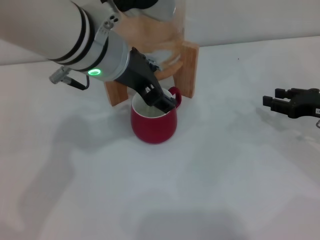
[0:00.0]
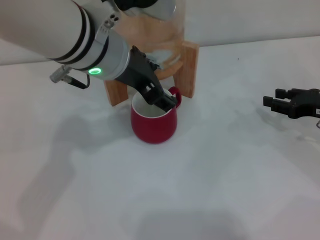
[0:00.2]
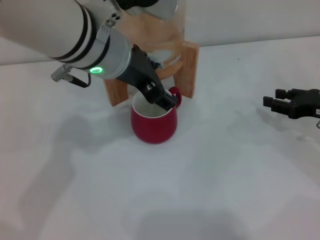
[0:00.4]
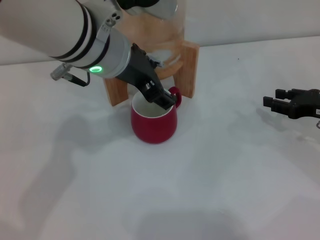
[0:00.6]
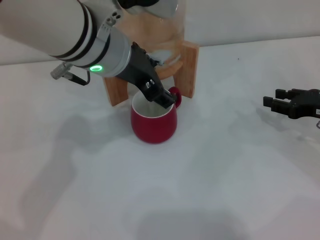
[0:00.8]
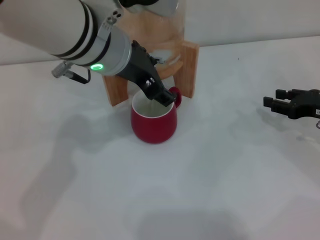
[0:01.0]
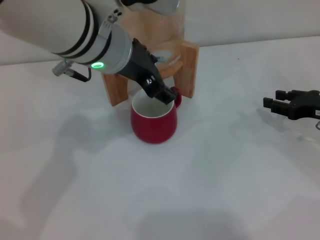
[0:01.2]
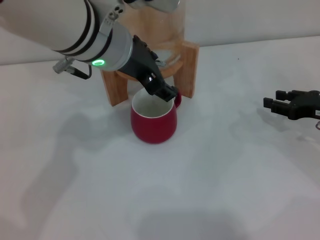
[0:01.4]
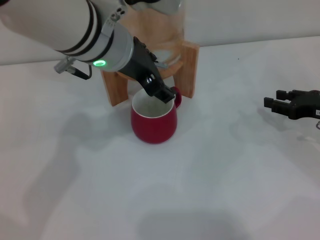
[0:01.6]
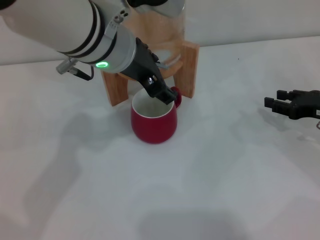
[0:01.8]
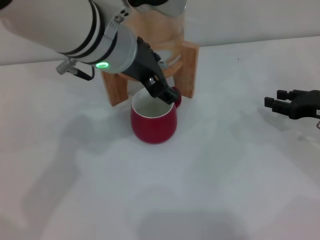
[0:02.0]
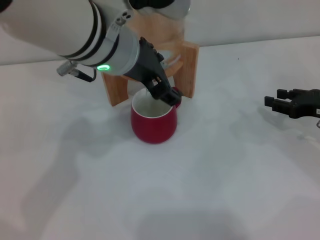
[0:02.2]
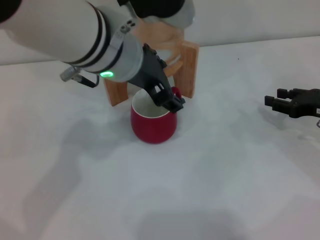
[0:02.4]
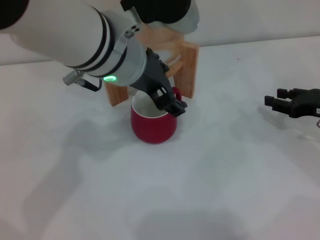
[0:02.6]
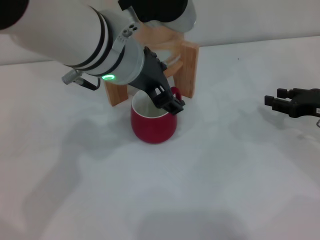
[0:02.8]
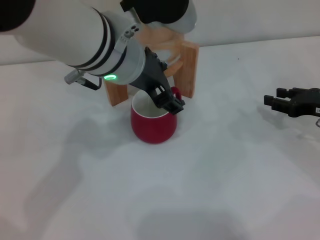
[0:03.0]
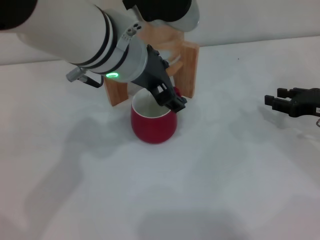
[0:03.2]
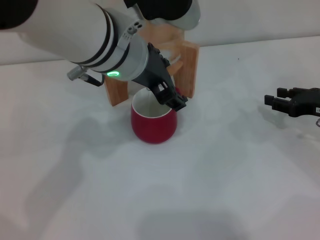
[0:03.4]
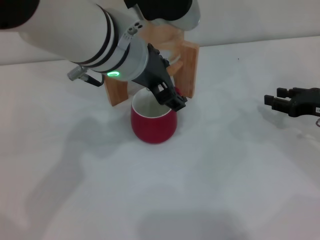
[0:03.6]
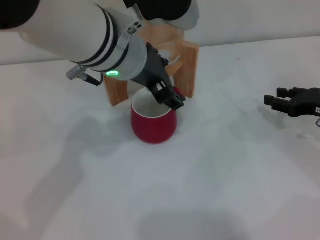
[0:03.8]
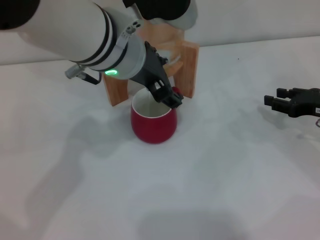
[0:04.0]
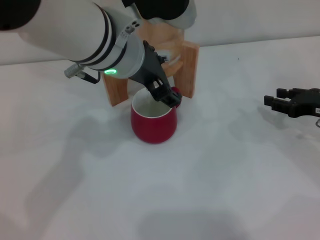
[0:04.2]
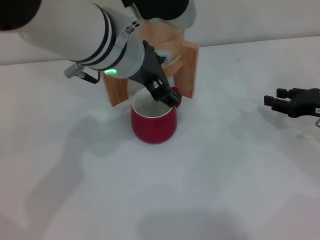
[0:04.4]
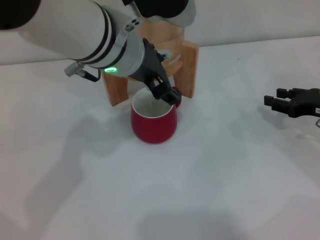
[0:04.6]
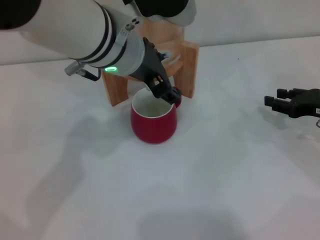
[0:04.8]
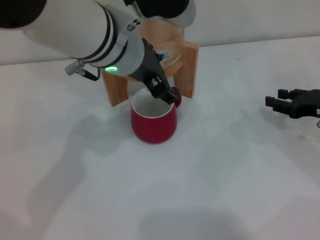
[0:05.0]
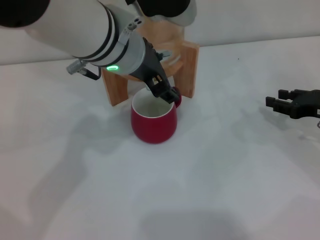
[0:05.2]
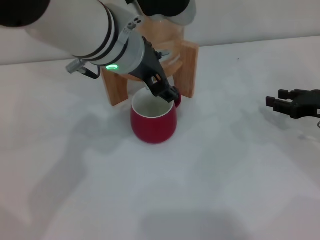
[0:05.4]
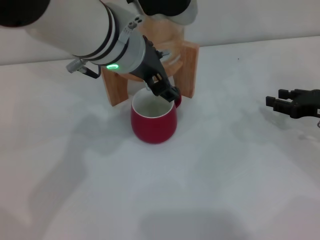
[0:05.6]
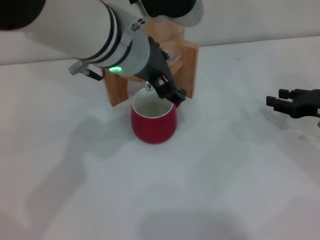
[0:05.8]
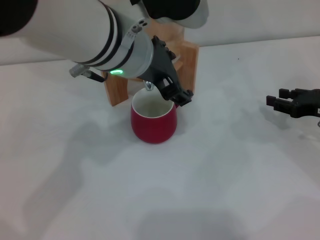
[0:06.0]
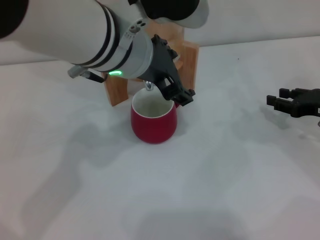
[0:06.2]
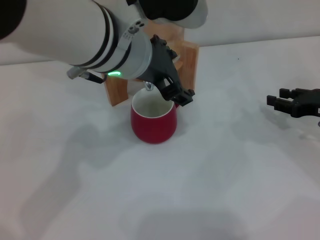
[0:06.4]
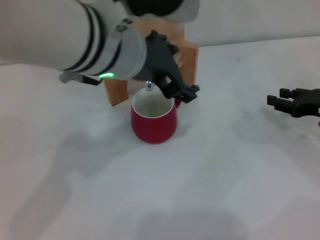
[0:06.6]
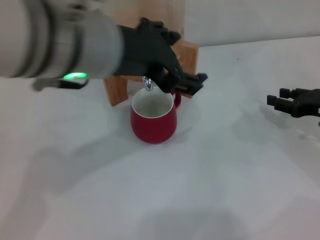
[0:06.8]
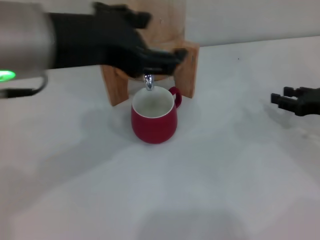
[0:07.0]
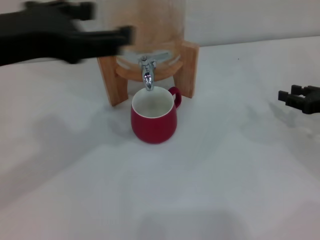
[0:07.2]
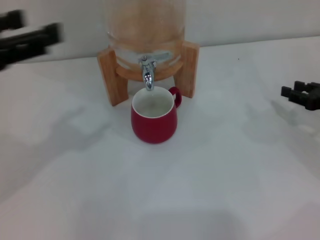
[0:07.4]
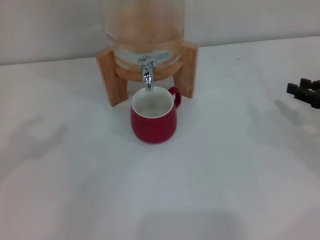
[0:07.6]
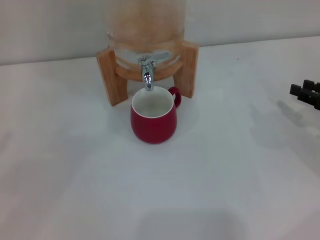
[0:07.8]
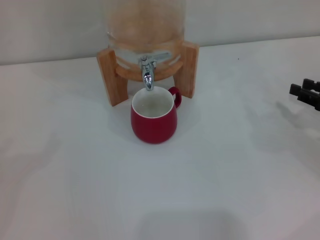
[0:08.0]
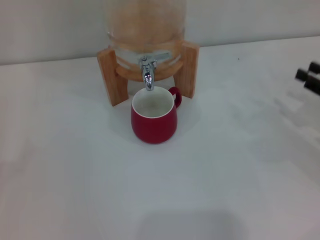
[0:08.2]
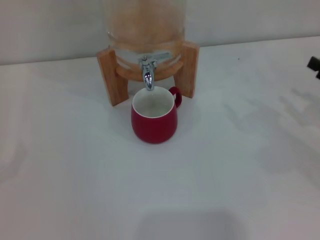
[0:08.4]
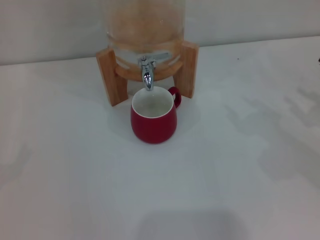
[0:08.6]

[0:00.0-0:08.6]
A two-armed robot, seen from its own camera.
Task of the whole recording: the right gripper pick up the red cup and place it horizontally under the faucet, the left gripper turn on the faucet to fill the cup, and then turn off the faucet.
Step, 0:00.0 to 0:06.0: Close the dispenser valve with the left gripper.
0:00.0 to 0:01.4: Both grippers stay about where they are.
0:01.4 to 0:02.8: The grippers make only small movements.
0:02.8 to 0:04.4: The two grippers keep their place.
0:04.4 to 0:05.8: Neither gripper changes place.
0:05.8 to 0:07.2: The left gripper heads to the left and backward, covering roughly 20 cm.
0:07.2 to 0:08.6: The right gripper heads backward, covering approximately 5 cm. Meanwhile the left gripper moves to the left and downward, approximately 30 cm.
